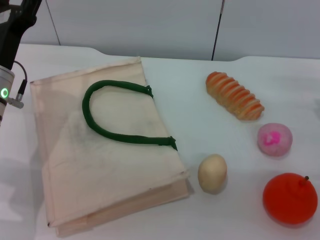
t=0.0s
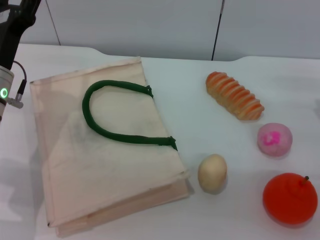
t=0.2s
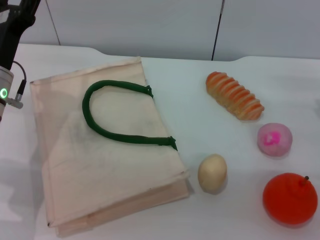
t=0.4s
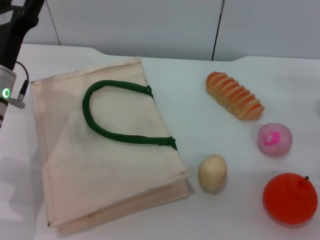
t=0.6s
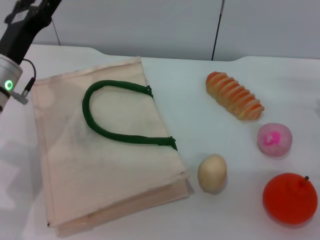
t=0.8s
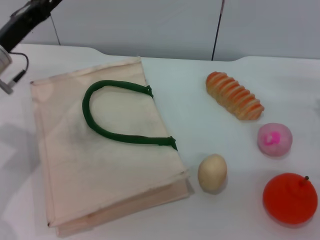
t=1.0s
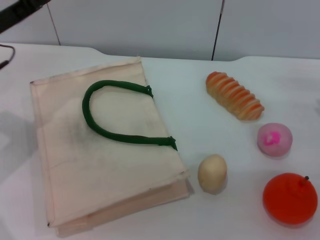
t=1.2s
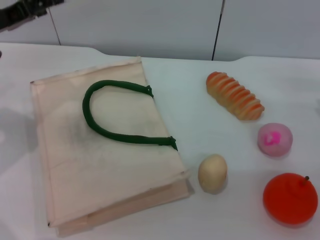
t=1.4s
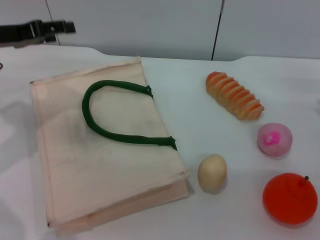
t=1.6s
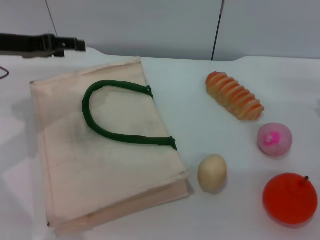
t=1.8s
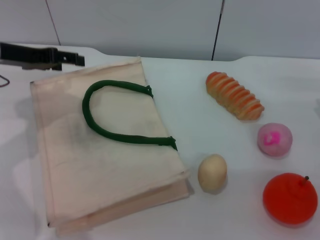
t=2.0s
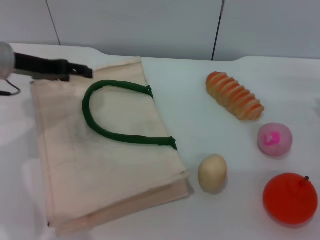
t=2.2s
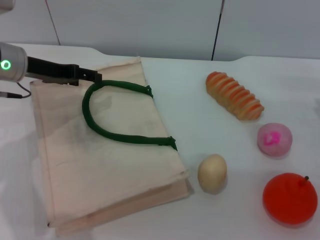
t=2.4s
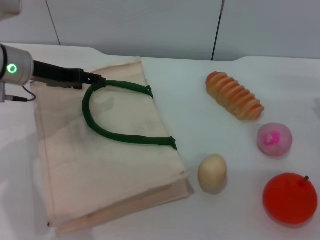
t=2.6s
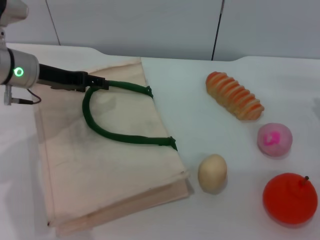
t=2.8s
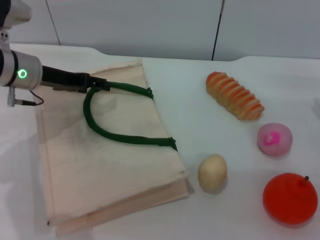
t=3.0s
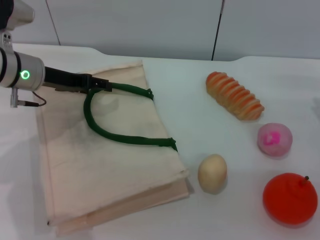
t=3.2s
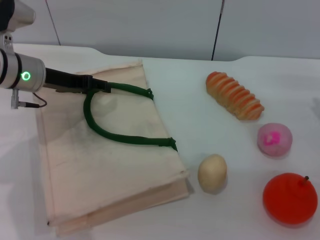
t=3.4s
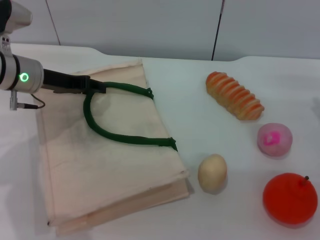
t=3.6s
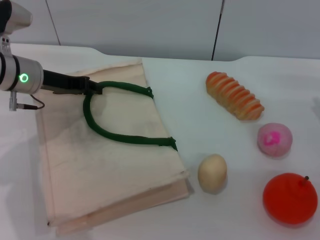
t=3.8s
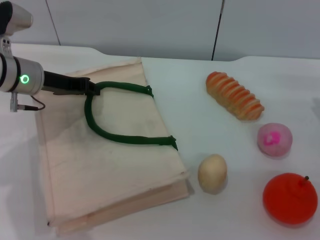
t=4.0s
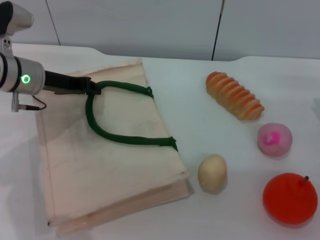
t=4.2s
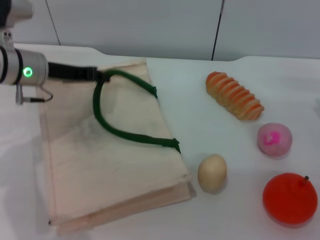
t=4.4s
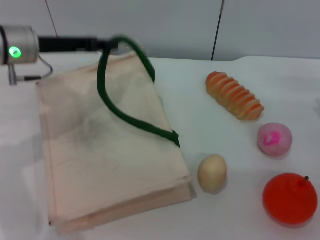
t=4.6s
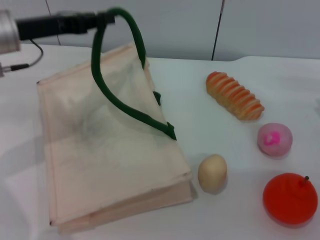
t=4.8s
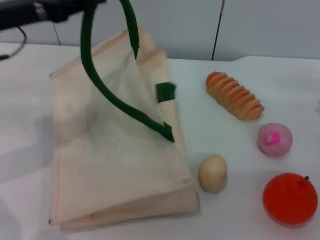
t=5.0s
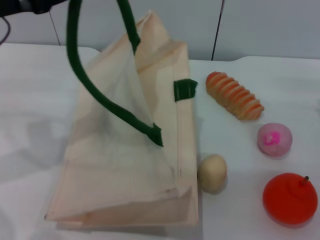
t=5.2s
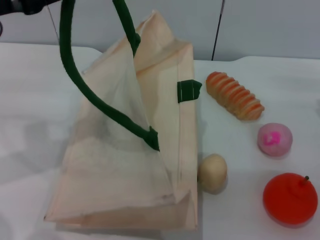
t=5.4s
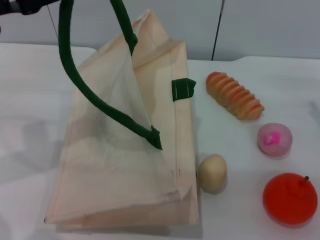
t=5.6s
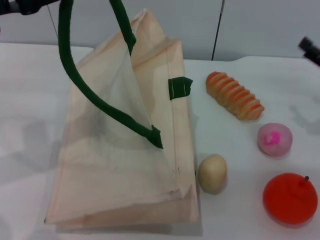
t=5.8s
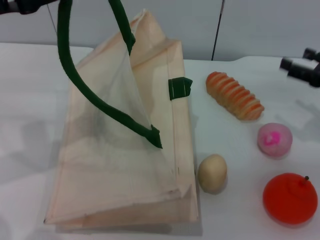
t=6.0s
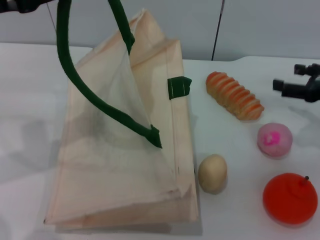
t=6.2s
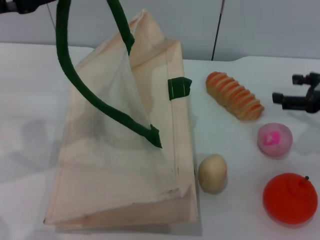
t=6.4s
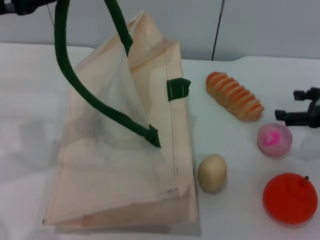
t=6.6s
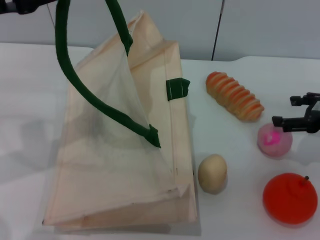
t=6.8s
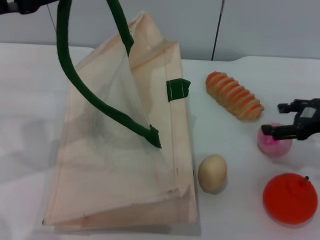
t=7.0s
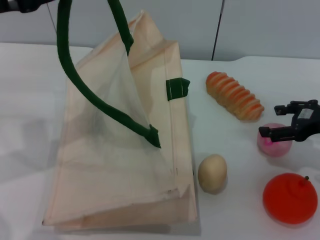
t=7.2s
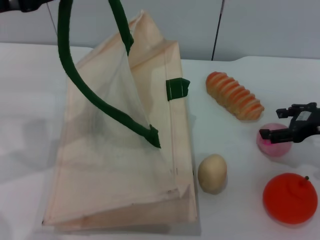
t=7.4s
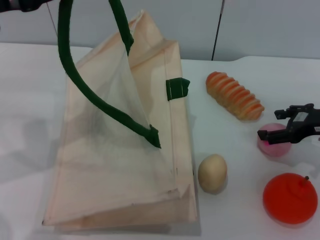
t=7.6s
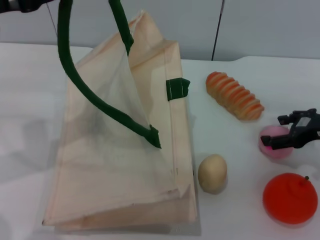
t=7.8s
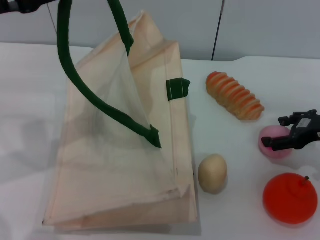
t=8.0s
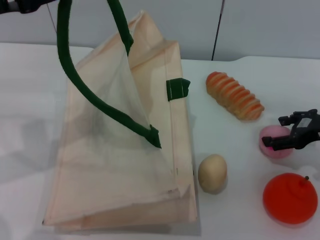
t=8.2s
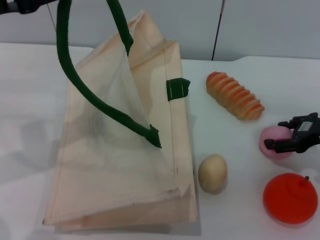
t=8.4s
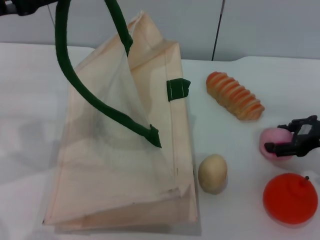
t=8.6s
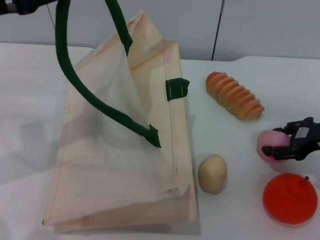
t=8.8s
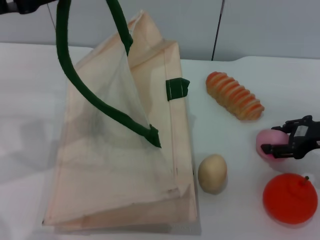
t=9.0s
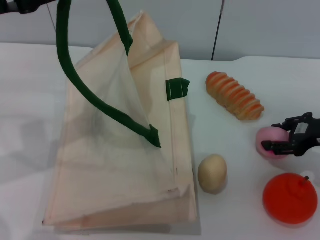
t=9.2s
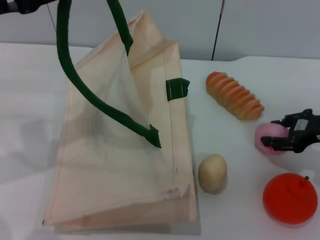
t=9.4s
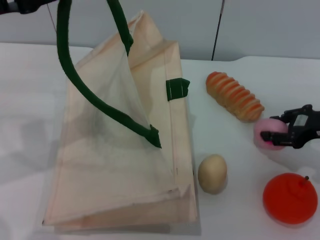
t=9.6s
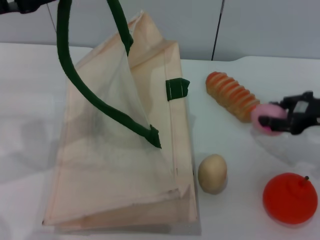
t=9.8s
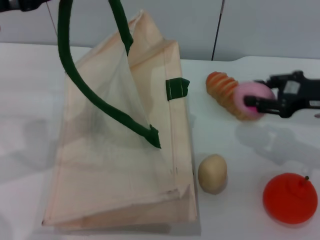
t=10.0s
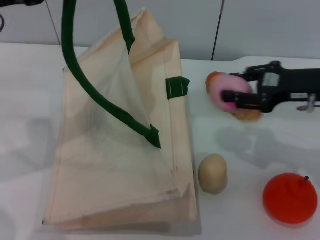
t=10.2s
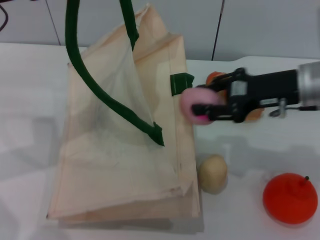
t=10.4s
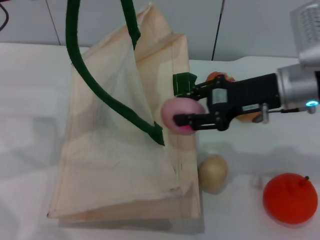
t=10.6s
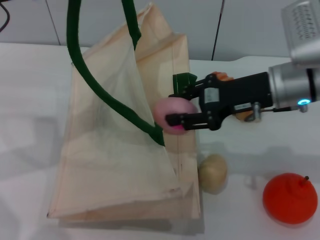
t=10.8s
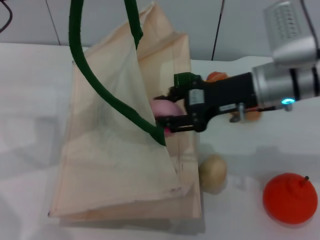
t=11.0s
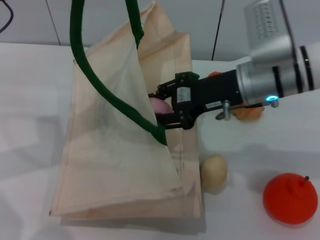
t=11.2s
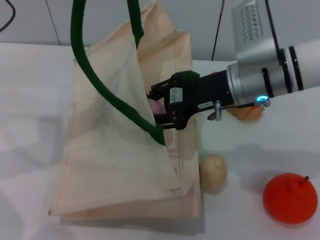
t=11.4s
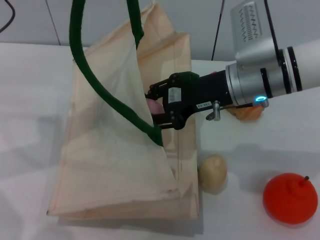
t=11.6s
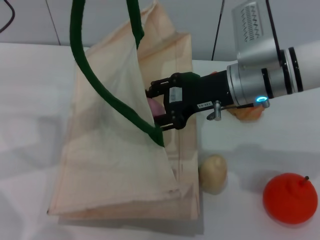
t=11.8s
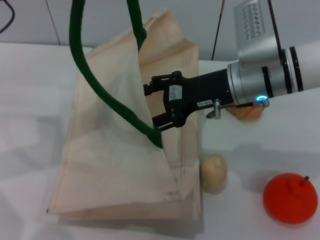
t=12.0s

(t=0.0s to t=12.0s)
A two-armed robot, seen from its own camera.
Task of the whole recording: pick up the peach from the table and place it in the white handbag.
Step, t=0.0s - t=4.8s: Lift the woven bag with the left gripper to open it.
Step, t=5.0s - t=9.8s: Pick up the peach with the right gripper.
t=0.0s - t=1.6s: The left gripper heads upward and to the left, covering roughly 10 cm.
t=1.6s - t=3.0s: The left gripper travels to the right and downward by some 10 cm.
t=3.0s - t=4.4s: The left gripper closes up.
t=4.4s - t=6.0s: The left gripper goes roughly 15 cm upward, backward and to the left, while the right gripper ends up approximately 5 cm from where it was.
t=7.6s - t=9.0s: The right gripper closes.
t=9.0s - t=10.4s: The right gripper shifts some 10 cm to the left and upward, and closes its fingers.
t=10.4s - t=12.0s: The right gripper heads to the left, covering some 10 cm, and opens up.

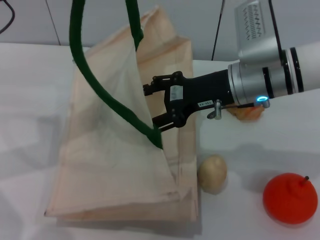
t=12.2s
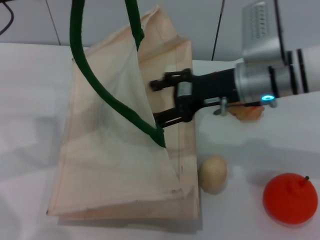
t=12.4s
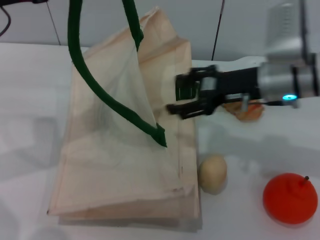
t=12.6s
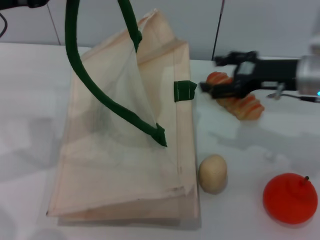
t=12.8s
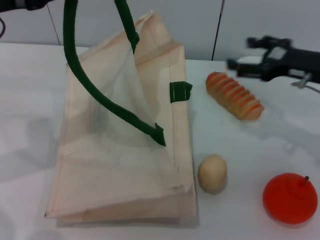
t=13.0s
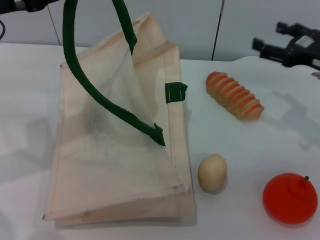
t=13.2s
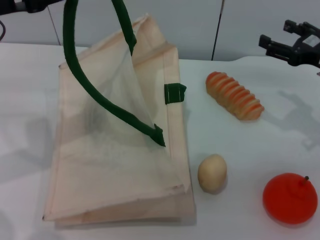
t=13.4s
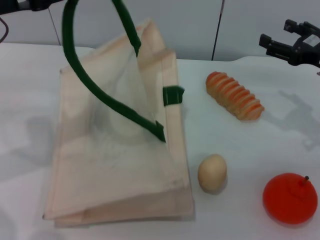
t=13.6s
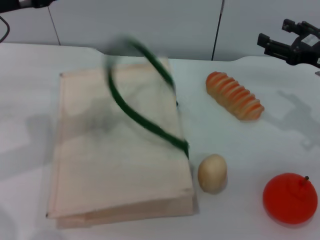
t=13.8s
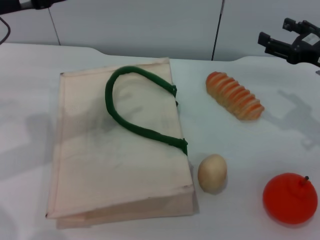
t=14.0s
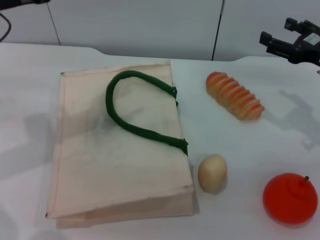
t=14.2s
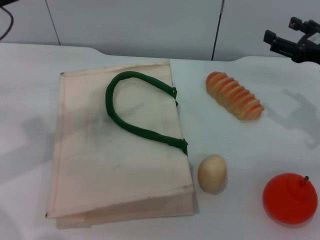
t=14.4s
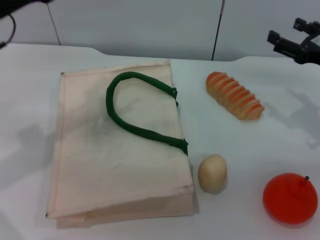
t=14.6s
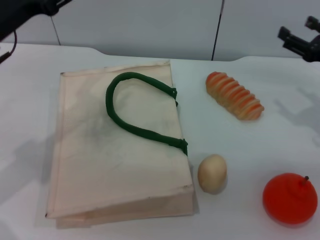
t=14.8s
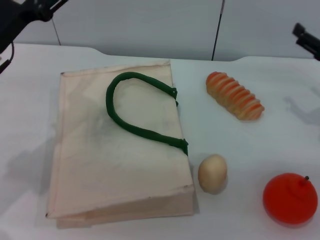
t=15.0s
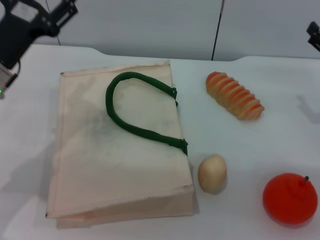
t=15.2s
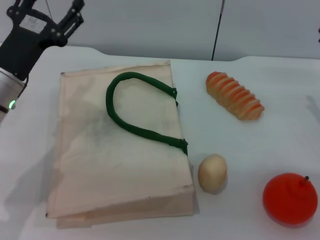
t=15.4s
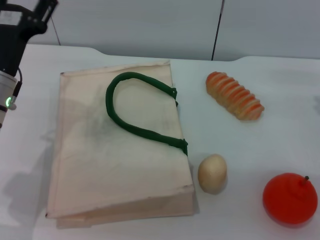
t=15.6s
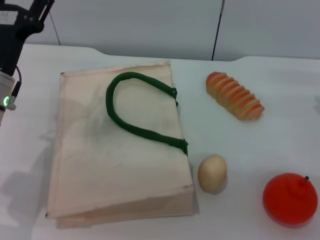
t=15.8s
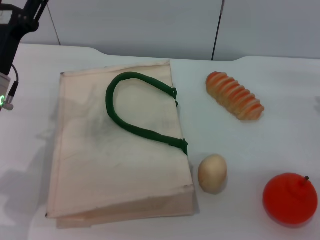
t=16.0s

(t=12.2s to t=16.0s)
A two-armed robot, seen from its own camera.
Task of the whole recording: pick up the peach from the table and place it in the white handbag.
Step, t=12.4s - t=14.0s: Lower the woven bag with the left gripper to close it.
t=12.2s - t=13.4s: The right gripper is displaced to the right by about 15 cm.
t=13.4s - t=14.8s: The left gripper heads downward, covering approximately 5 cm, and opens up.
t=14.8s - t=16.0s: The left gripper is displaced downward by roughly 5 cm.
